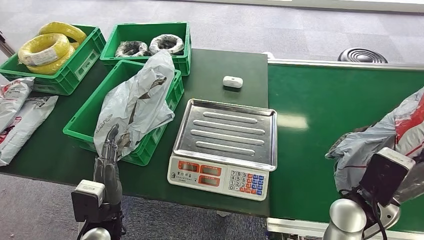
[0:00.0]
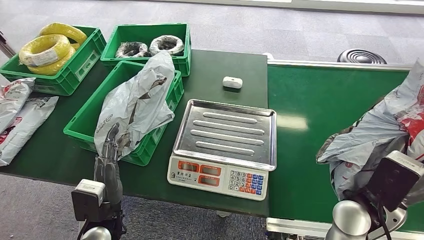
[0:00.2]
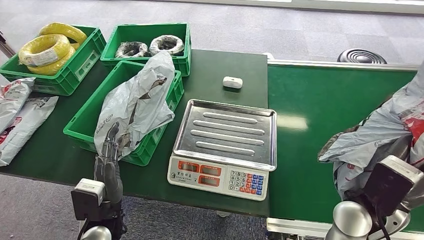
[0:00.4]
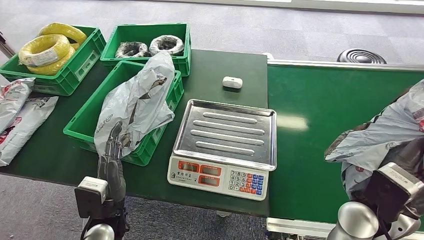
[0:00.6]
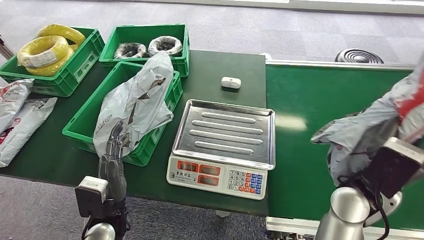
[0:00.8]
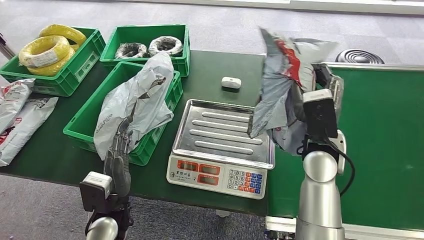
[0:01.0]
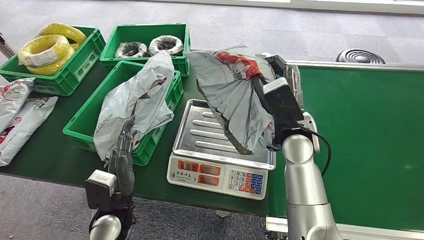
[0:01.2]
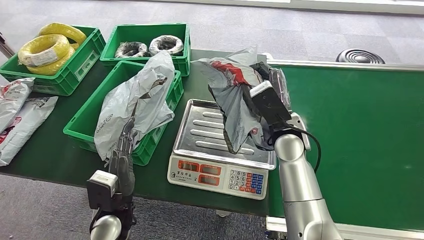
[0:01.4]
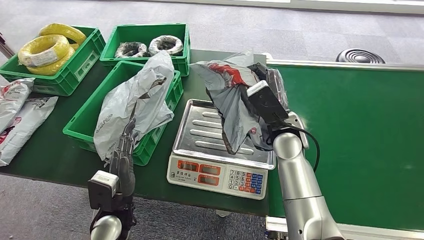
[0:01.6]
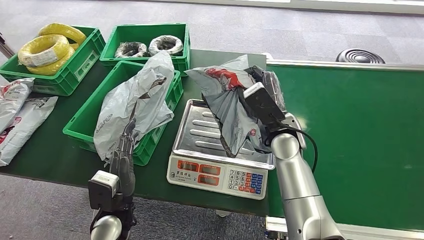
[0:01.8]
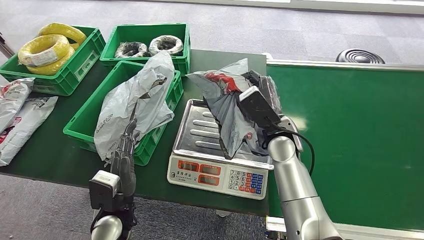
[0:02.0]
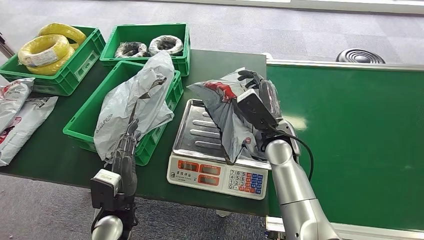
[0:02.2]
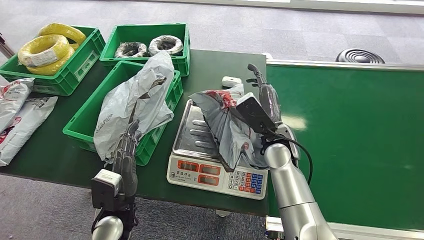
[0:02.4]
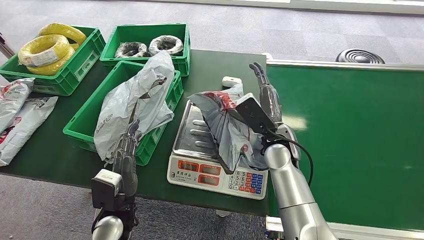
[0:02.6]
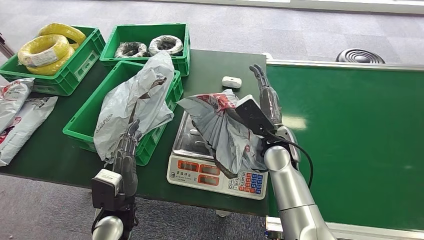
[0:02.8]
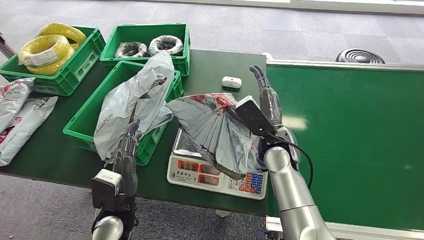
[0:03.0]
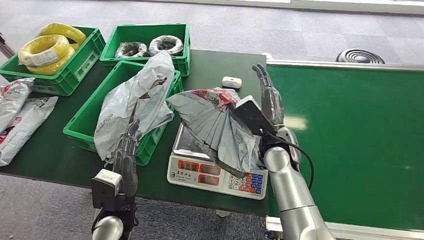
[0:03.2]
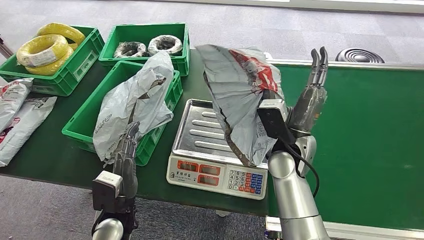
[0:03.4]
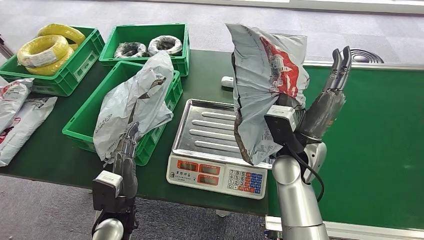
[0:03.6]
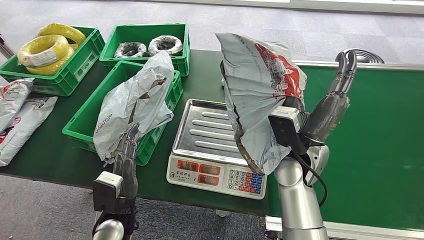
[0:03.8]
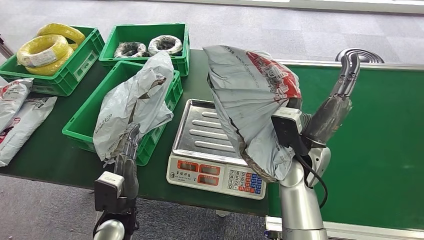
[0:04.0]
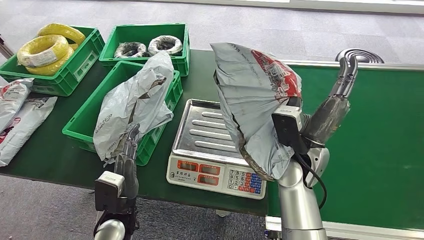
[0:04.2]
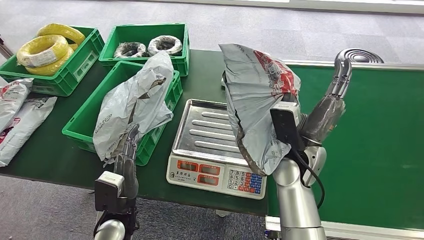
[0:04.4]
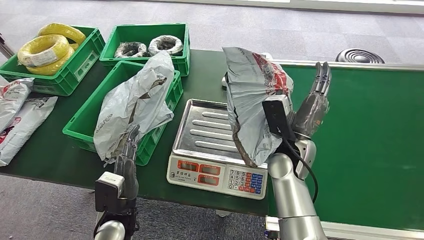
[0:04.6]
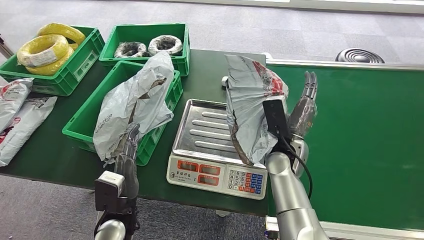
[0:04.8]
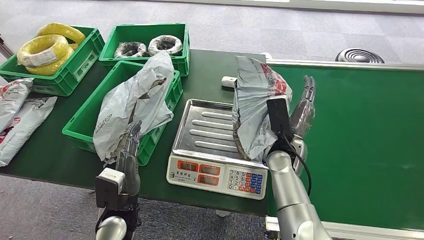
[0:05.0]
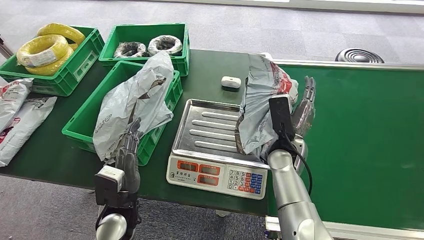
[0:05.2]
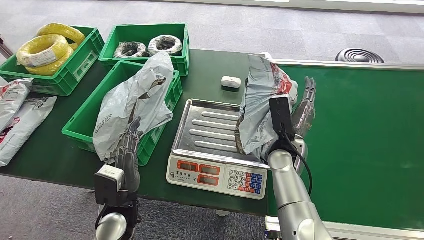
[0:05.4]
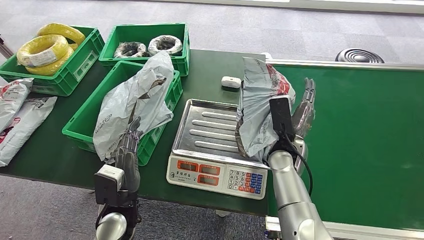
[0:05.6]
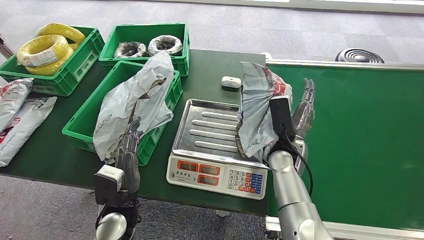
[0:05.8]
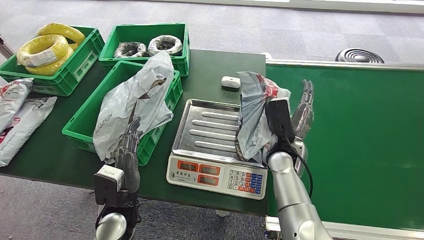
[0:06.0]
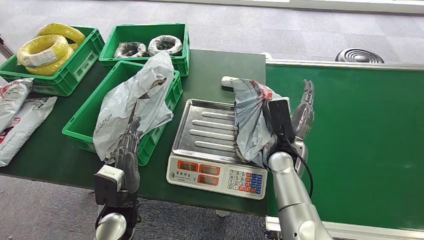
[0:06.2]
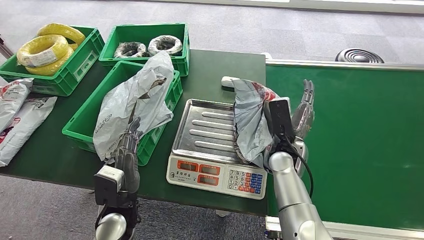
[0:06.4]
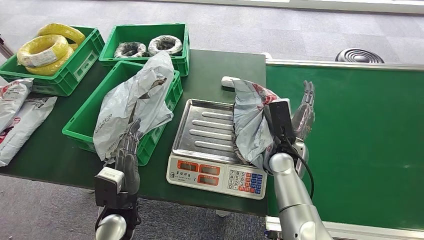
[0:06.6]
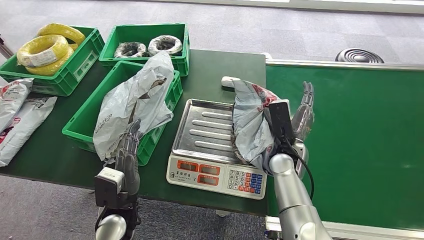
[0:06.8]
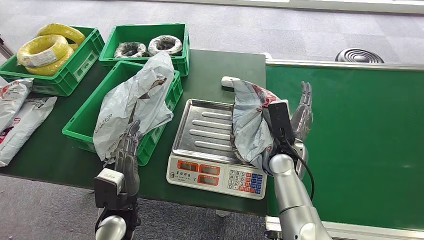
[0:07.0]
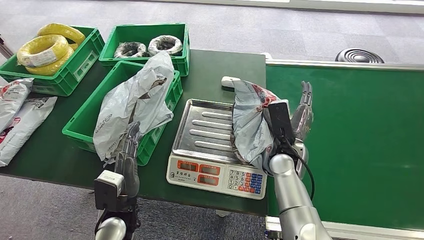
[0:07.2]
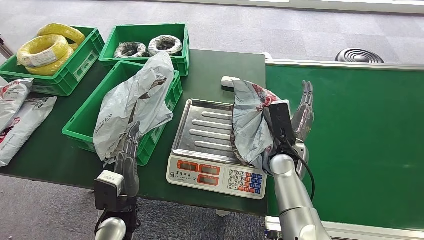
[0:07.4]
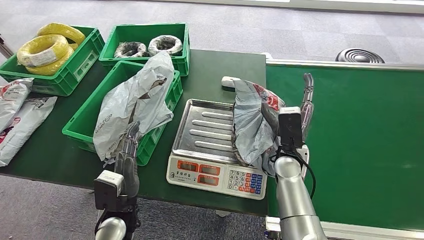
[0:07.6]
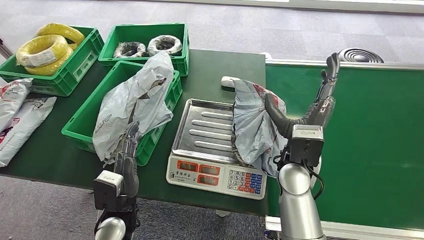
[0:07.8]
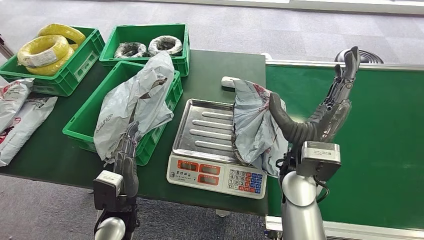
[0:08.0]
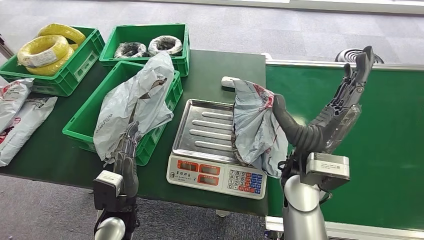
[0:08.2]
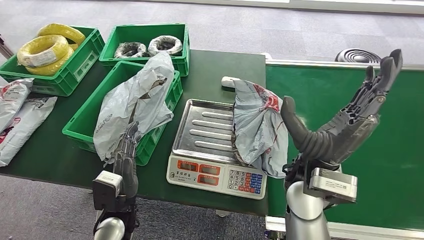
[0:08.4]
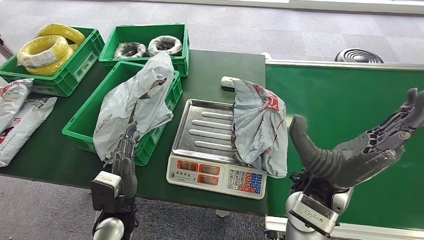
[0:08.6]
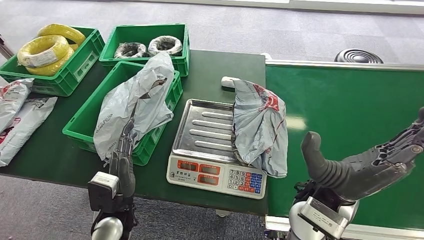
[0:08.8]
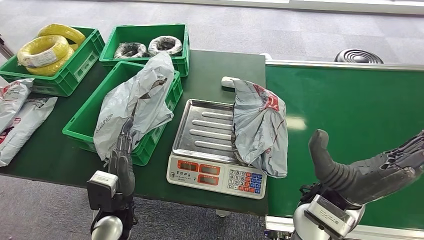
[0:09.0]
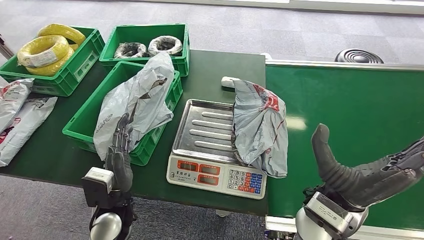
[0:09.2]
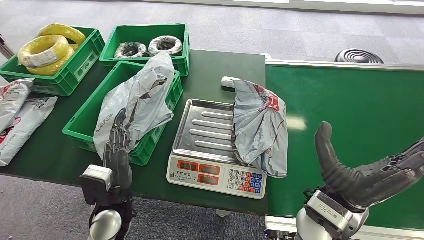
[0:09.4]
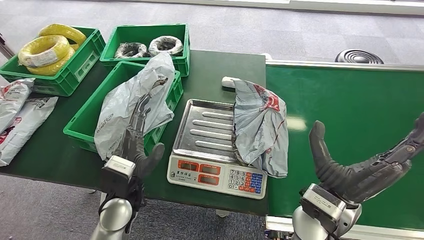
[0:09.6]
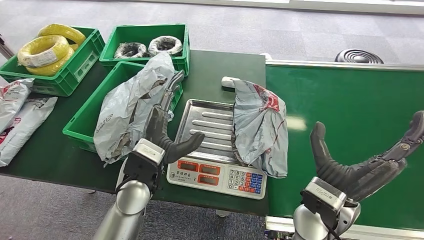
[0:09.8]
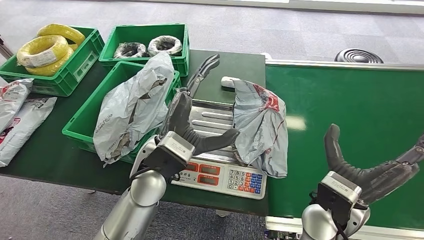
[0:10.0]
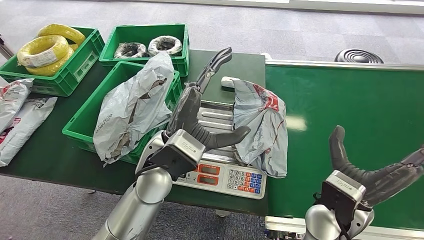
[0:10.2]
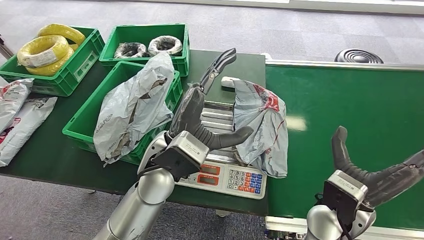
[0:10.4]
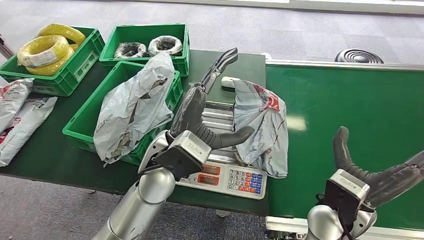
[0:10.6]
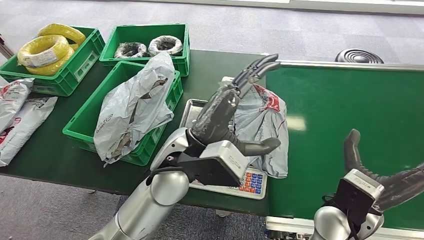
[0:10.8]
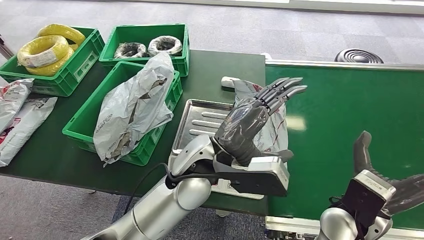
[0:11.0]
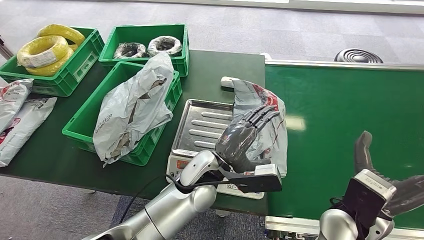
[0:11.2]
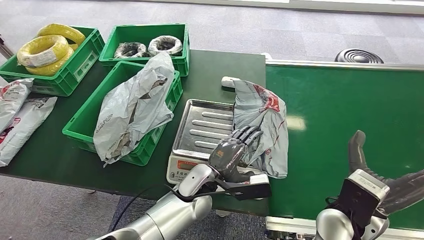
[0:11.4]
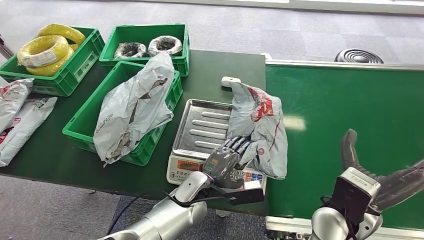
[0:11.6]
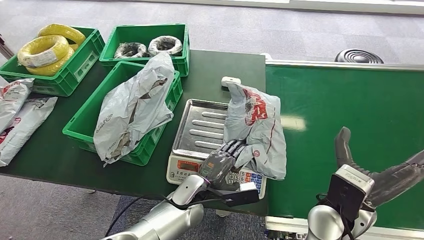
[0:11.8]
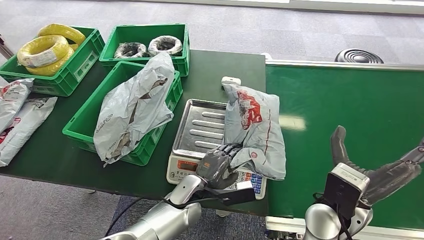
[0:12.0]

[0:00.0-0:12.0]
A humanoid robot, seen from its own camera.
Step, 0:01.0 to 0:08.0: Place the package onto the inbound machine.
0:01.6 to 0:03.0: The hands stay close to where they were, moving slightly.
0:04.4 to 0:06.0: The right hand goes about 5 cm downward.
0:06.0 to 0:07.6: The hands stay close to where they were, moving slightly.
0:07.6 to 0:09.0: The right hand moves backward and upward, some 15 cm.
0:09.0 to 0:10.4: The left hand goes roughly 20 cm upward and to the right. Meanwhile the right hand ends up some 5 cm from where it was.
0:10.4 to 0:12.0: The left hand moves downward, roughly 20 cm.

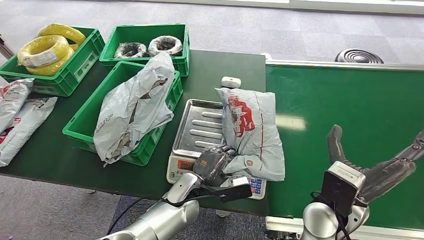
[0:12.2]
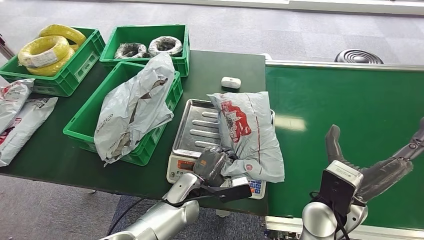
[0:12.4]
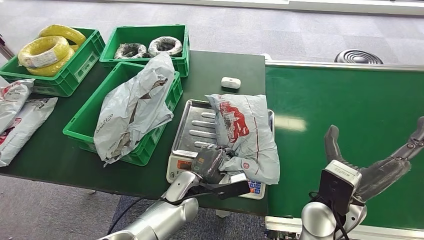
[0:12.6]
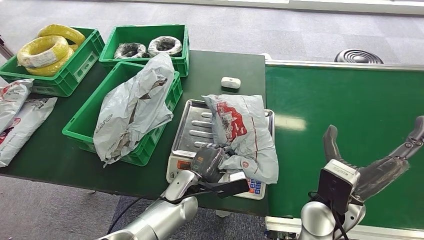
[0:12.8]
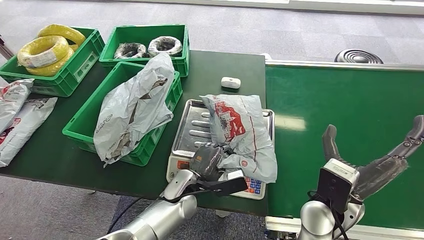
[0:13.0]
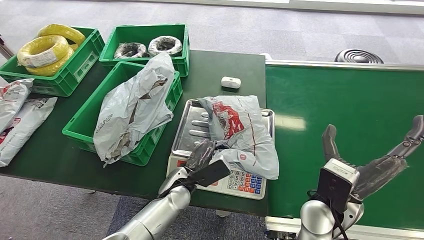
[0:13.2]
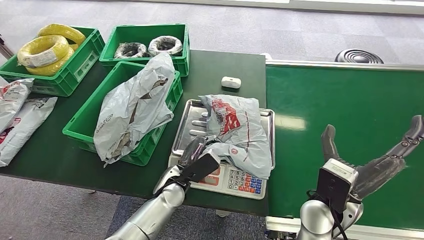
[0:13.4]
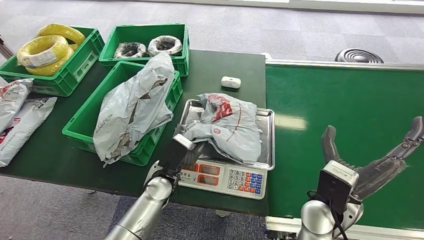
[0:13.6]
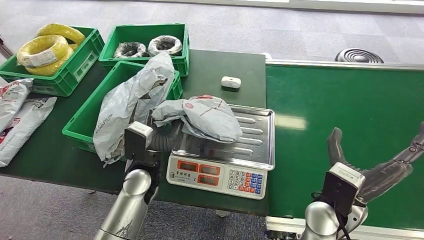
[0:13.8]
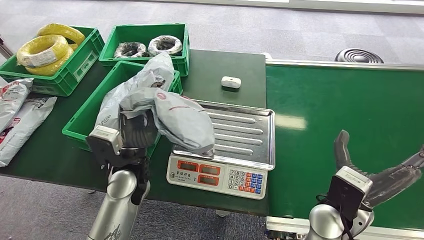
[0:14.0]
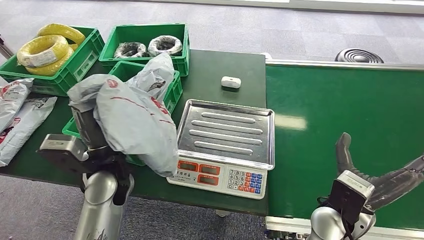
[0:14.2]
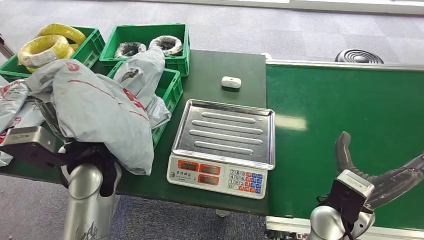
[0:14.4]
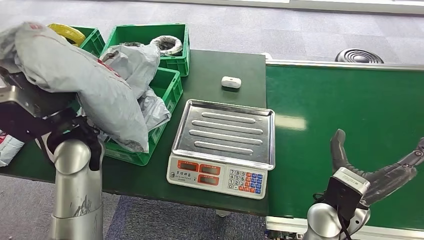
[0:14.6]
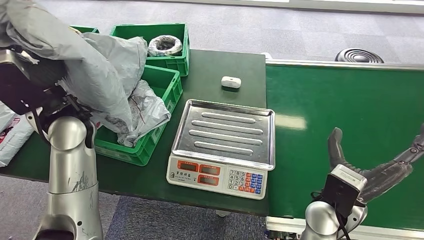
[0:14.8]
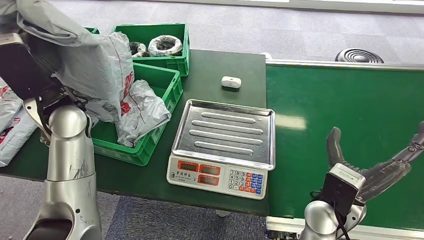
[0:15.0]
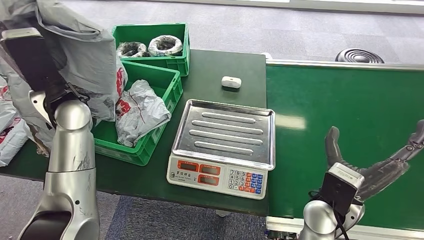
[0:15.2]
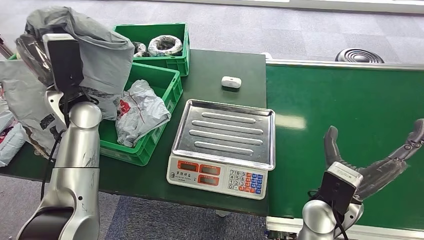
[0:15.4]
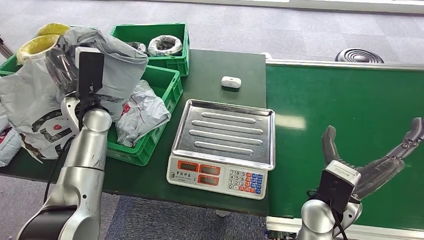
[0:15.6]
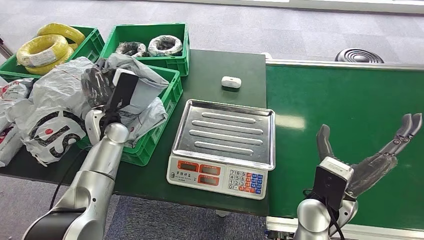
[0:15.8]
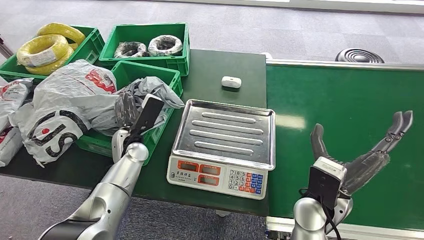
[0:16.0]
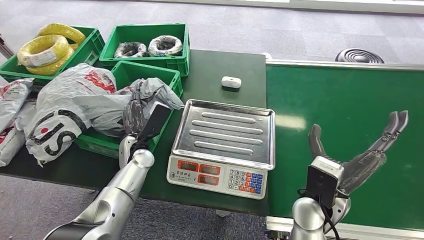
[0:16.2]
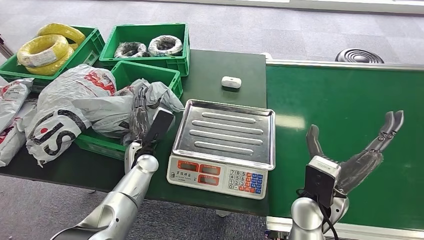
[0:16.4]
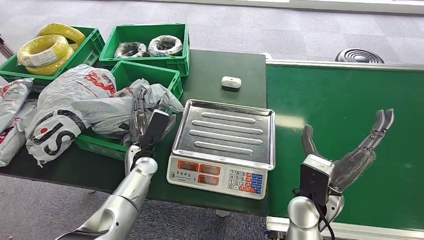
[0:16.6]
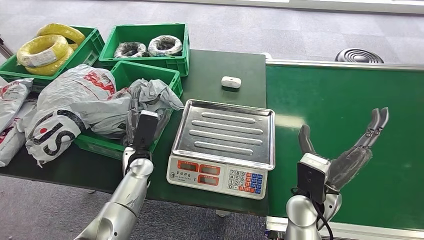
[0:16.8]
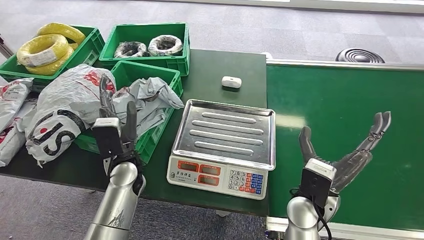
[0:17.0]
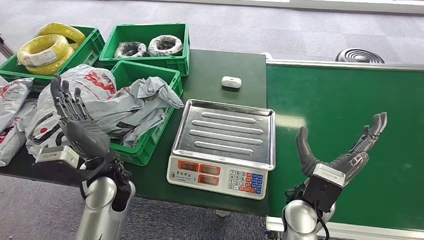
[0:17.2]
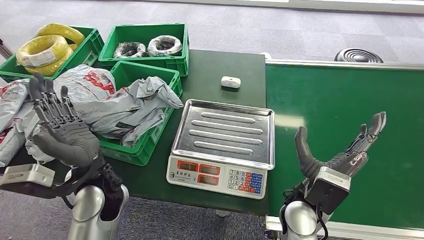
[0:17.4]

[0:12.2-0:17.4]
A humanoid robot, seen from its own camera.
Step, 0:12.2 to 0:14.4: Pick up the package from the inbound machine.
Step, 0:14.6 to 0:17.4: Place the package into the parcel locker.
0:12.2 to 0:14.0: The left hand shifts roughly 15 cm upward and to the left.
